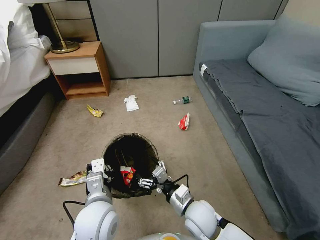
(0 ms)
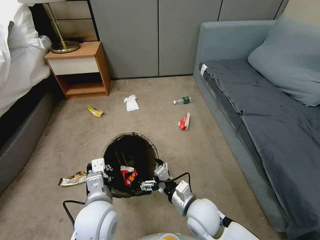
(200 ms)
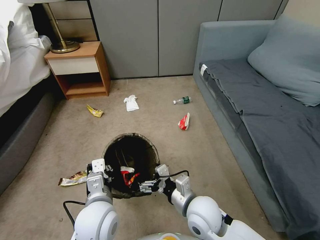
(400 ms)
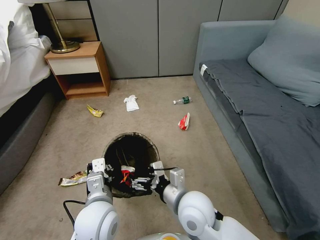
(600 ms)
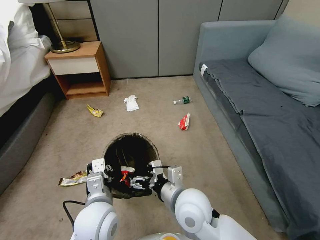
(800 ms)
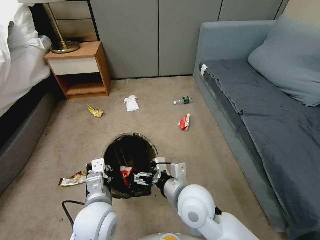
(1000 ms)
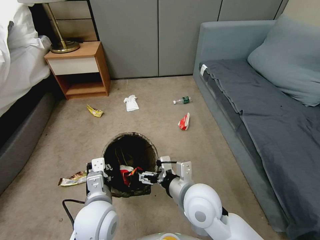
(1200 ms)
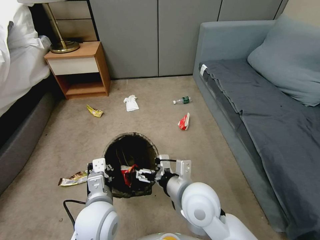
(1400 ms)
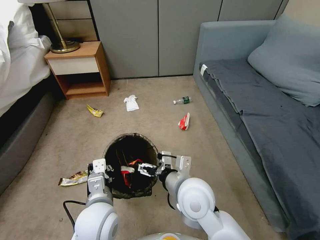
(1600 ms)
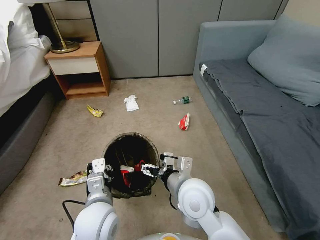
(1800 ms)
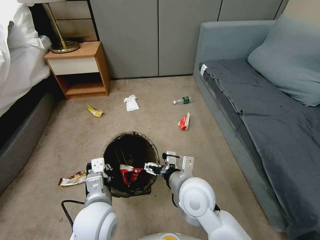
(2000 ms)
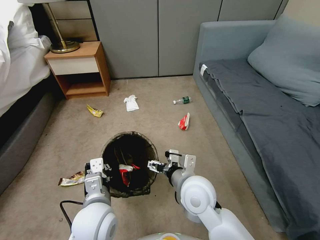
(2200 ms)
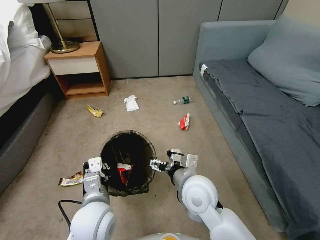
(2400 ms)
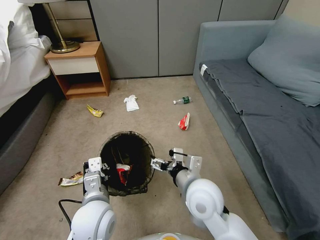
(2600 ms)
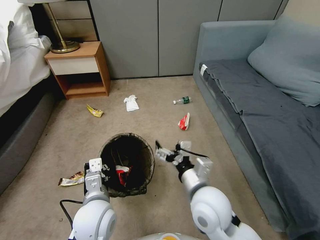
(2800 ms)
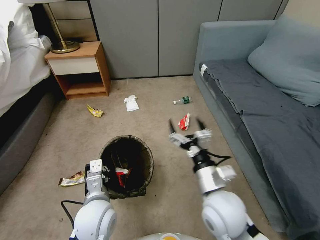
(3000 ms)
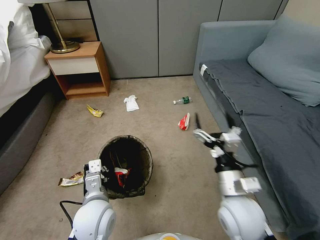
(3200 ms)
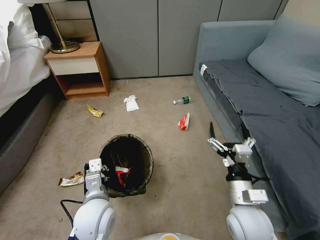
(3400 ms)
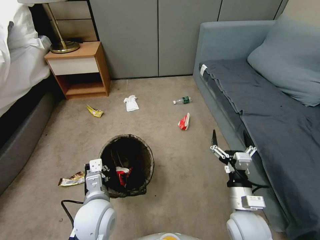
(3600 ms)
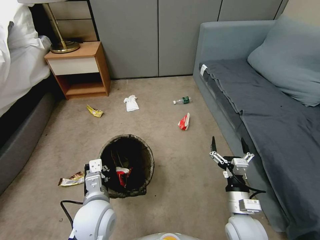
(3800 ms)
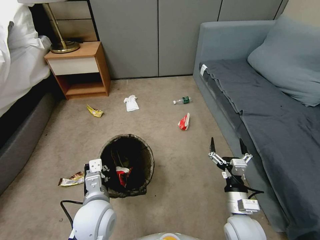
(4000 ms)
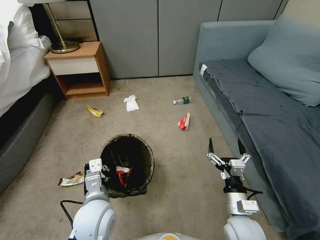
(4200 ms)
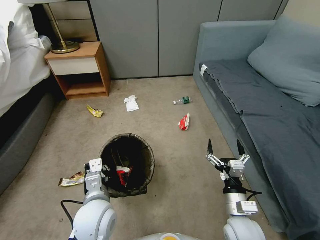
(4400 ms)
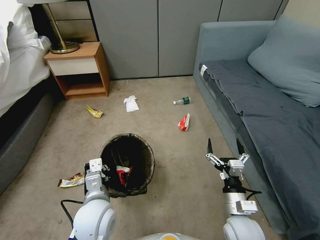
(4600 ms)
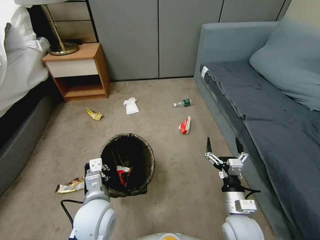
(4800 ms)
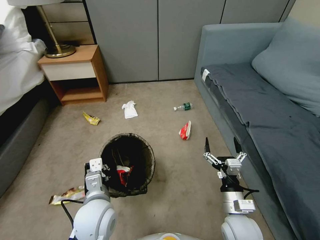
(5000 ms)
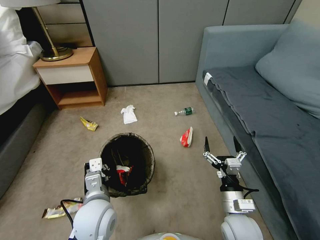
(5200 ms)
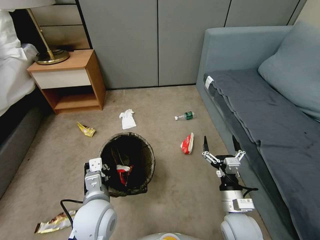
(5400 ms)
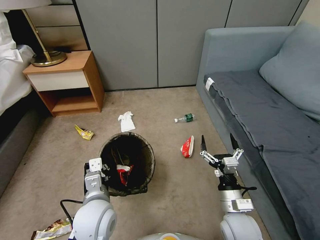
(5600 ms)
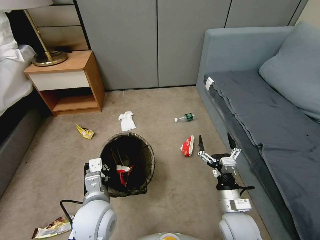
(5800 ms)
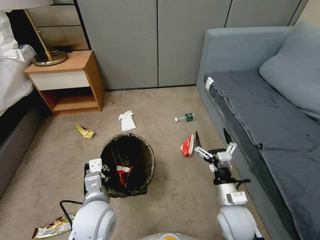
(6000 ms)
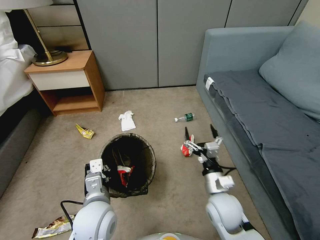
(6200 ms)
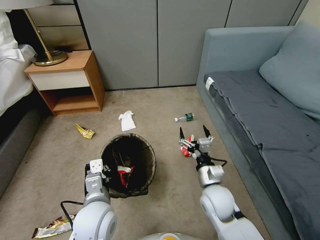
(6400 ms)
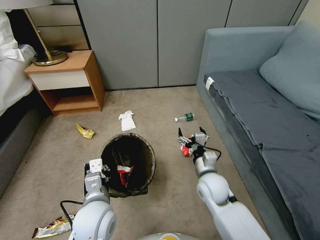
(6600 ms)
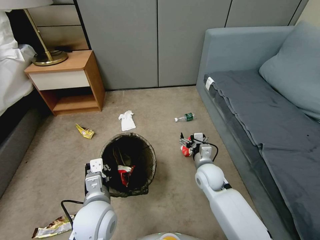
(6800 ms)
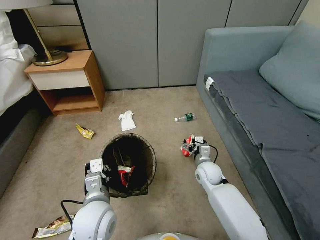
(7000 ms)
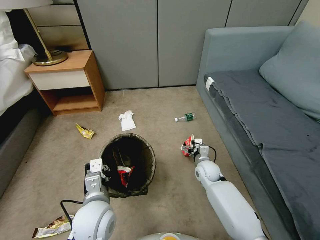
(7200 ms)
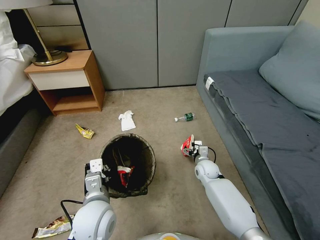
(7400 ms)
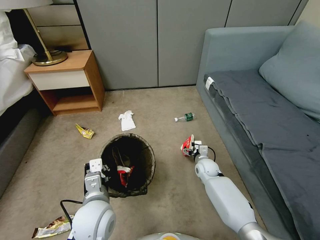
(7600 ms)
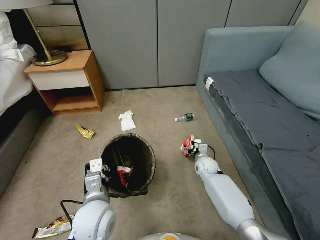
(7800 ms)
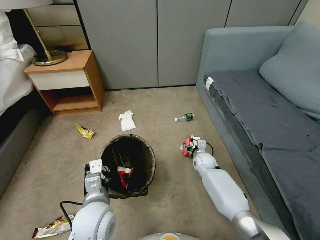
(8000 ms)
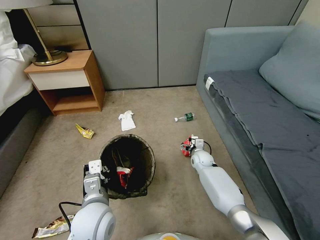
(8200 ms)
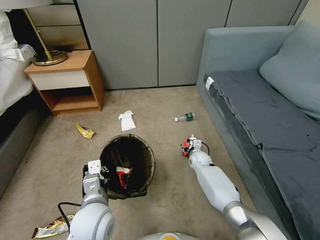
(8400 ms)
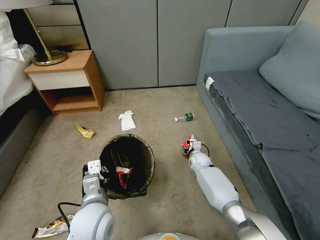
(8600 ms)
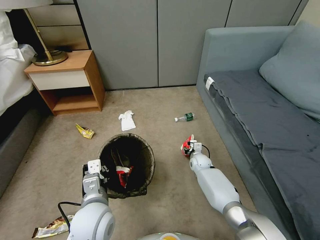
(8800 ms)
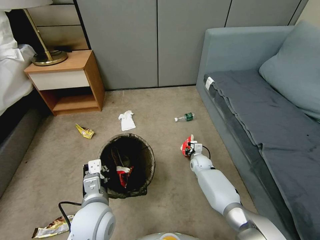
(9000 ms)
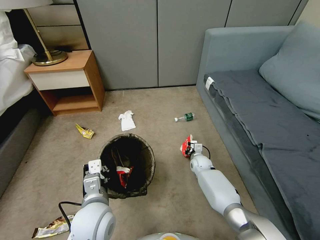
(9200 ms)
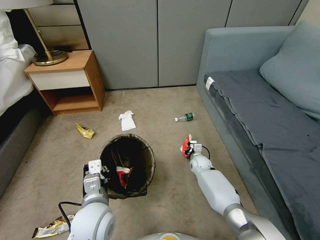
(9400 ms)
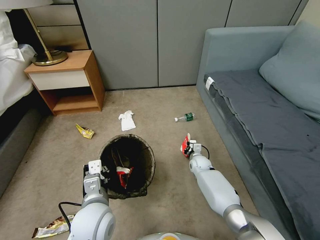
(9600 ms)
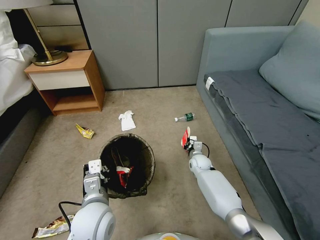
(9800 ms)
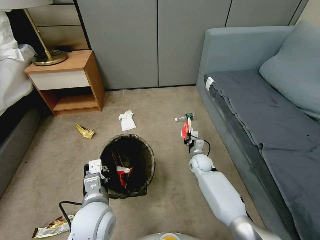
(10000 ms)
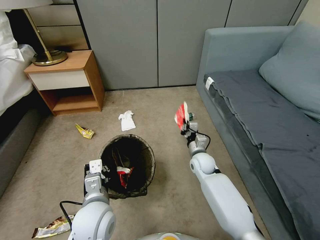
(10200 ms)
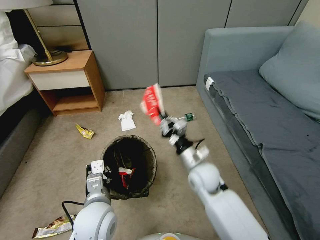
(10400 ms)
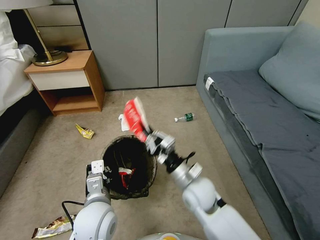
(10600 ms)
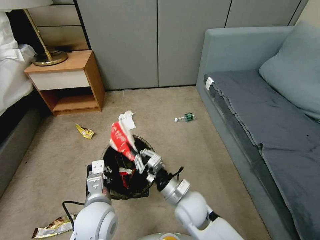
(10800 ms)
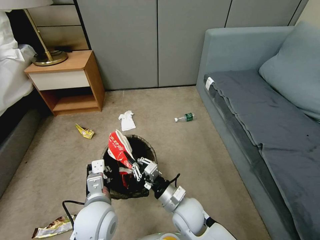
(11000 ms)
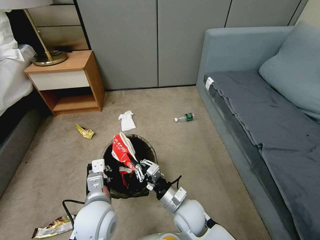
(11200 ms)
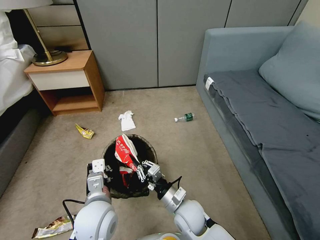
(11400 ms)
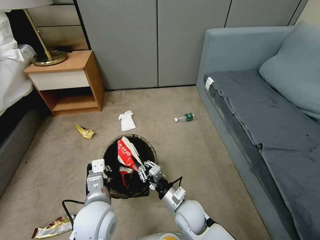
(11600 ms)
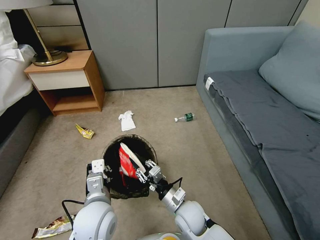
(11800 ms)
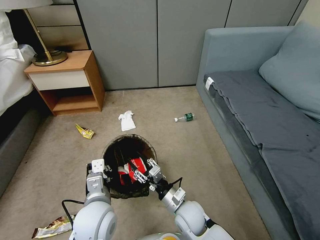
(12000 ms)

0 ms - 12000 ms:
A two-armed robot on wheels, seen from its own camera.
Task of the whole recording: Pick up the trash bin, then pick up the garbage from the floor and place it into the trash bin.
0 ms - 1600 ms: The right gripper heads upward, covering approximately 15 cm.
1600 ms - 3000 ms: The right gripper heads to the right, covering some 5 cm.
3000 ms - 4400 ms: The right gripper shifts roughly 15 cm downward and to the right.
6000 ms - 7600 ms: The right gripper moves forward and downward, approximately 25 cm.
7600 ms - 9000 ms: The right gripper shifts by about 5 cm, and closes its fingers.
9000 ms - 10400 ms: The right gripper goes roughly 25 cm upward and backward, and closes up.
10400 ms - 12000 ms: The right gripper travels backward and downward by approximately 15 cm, and opens.

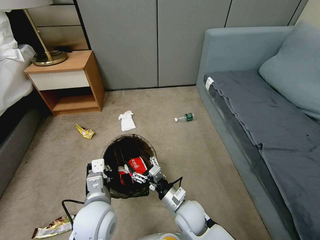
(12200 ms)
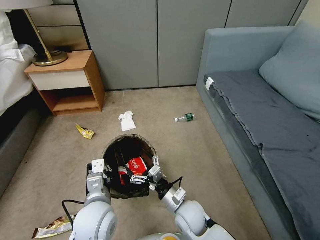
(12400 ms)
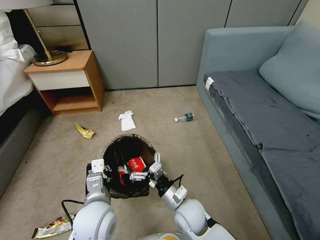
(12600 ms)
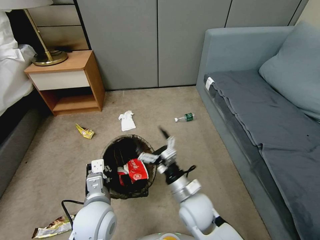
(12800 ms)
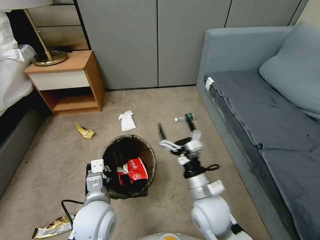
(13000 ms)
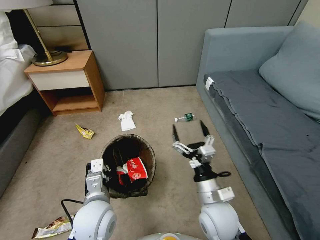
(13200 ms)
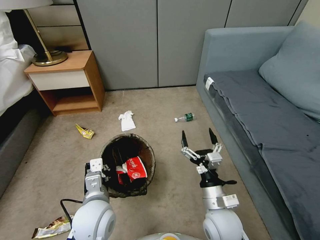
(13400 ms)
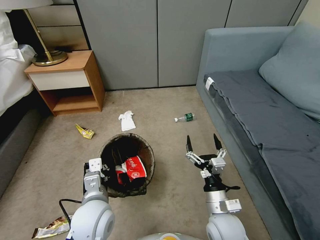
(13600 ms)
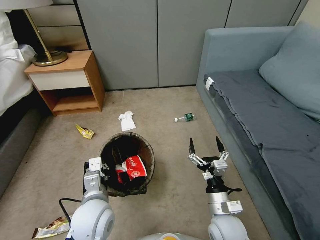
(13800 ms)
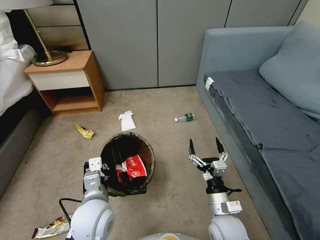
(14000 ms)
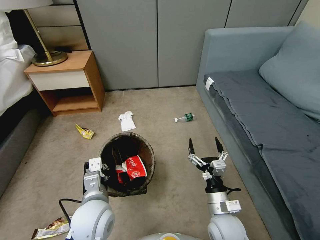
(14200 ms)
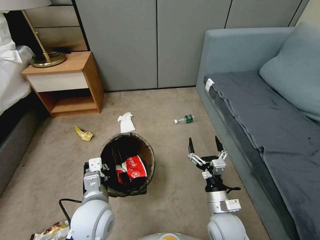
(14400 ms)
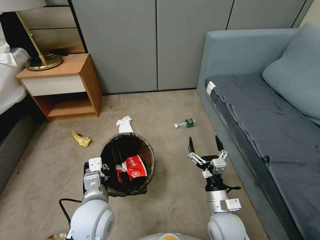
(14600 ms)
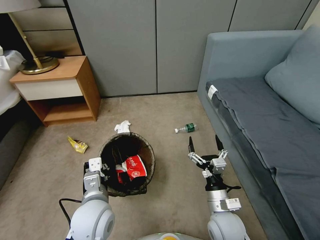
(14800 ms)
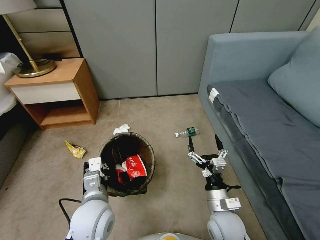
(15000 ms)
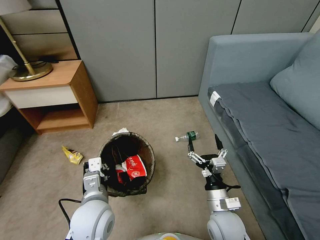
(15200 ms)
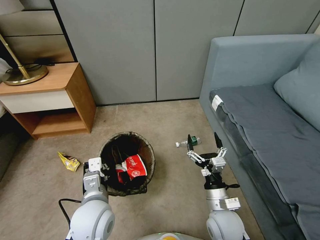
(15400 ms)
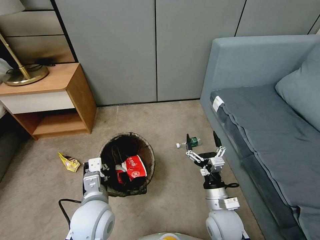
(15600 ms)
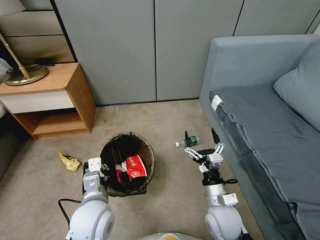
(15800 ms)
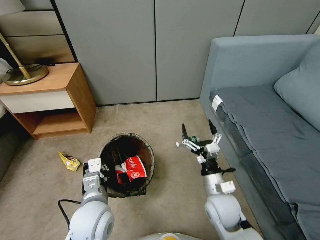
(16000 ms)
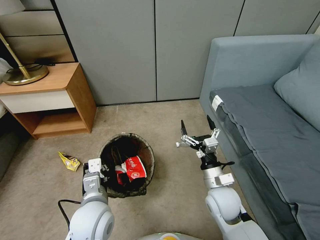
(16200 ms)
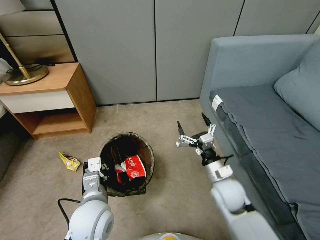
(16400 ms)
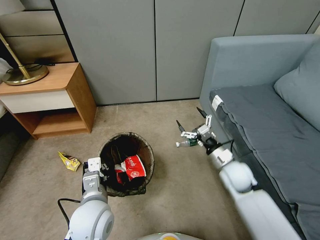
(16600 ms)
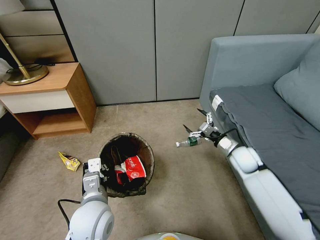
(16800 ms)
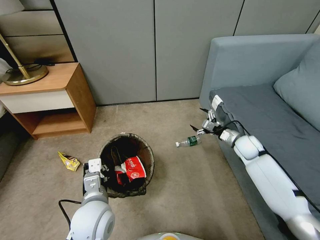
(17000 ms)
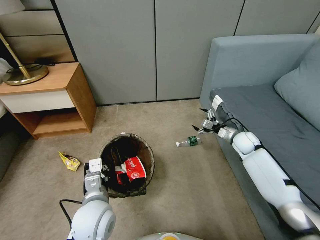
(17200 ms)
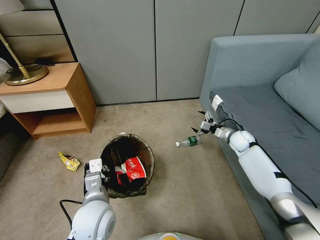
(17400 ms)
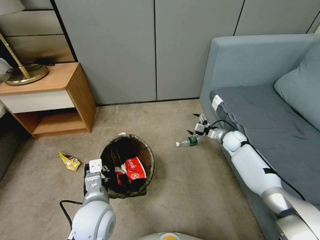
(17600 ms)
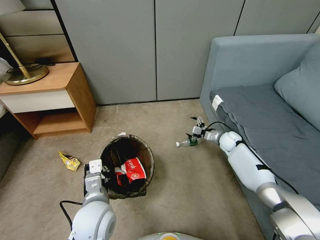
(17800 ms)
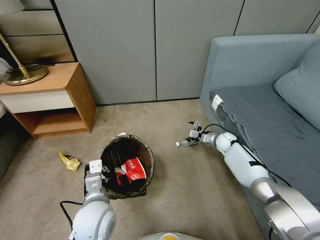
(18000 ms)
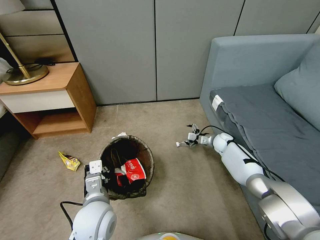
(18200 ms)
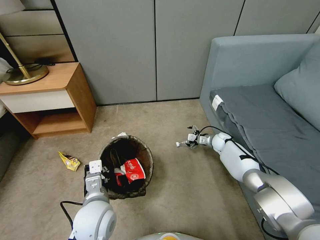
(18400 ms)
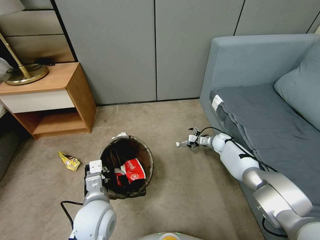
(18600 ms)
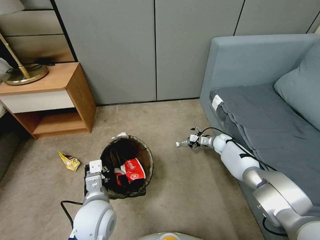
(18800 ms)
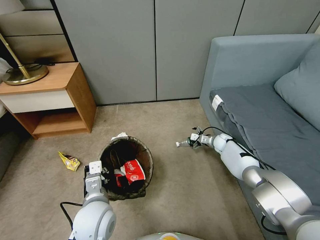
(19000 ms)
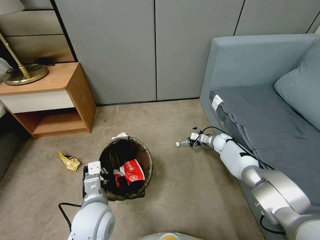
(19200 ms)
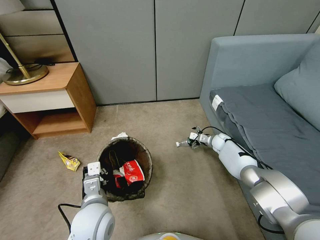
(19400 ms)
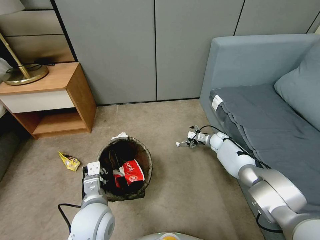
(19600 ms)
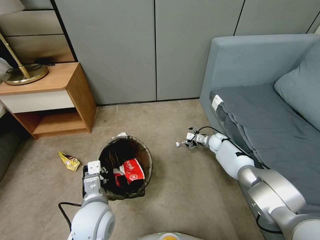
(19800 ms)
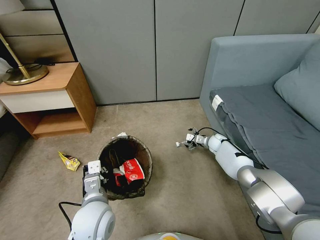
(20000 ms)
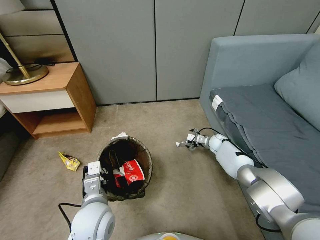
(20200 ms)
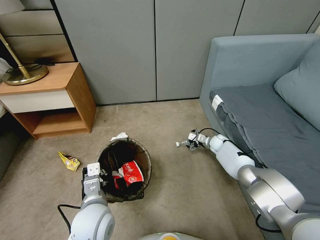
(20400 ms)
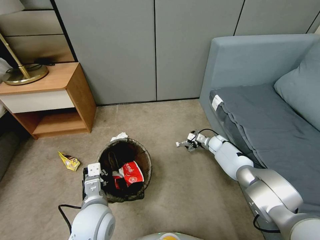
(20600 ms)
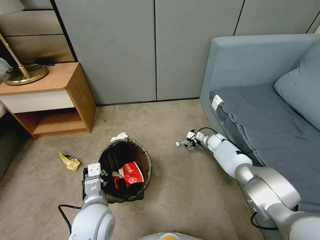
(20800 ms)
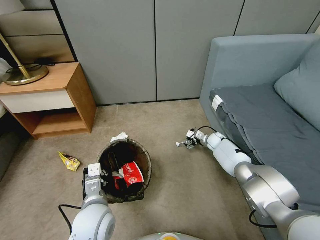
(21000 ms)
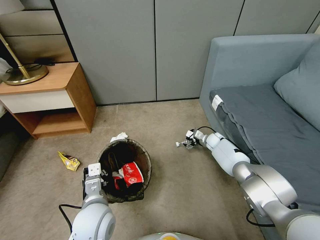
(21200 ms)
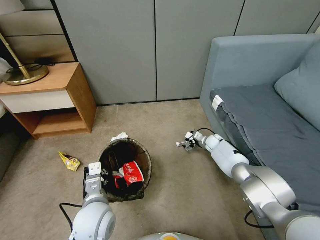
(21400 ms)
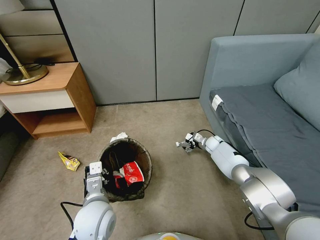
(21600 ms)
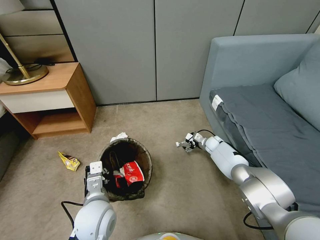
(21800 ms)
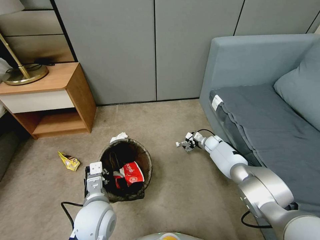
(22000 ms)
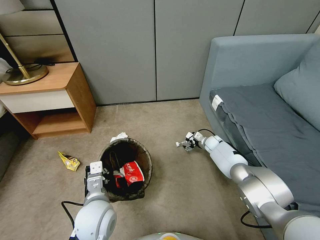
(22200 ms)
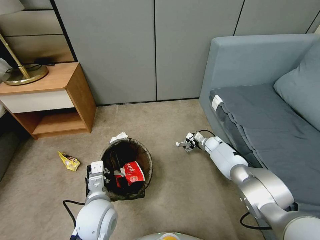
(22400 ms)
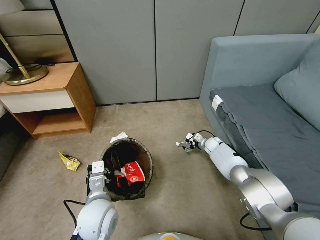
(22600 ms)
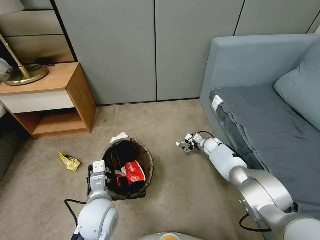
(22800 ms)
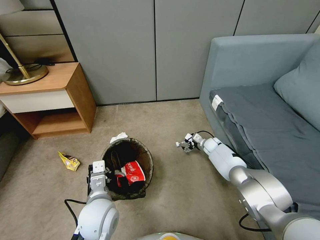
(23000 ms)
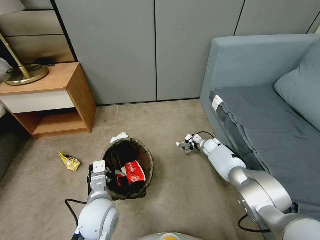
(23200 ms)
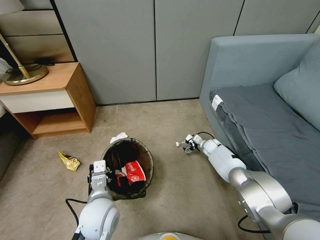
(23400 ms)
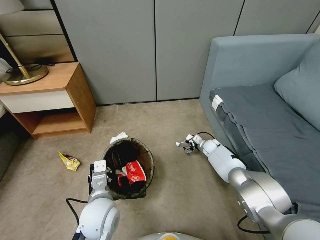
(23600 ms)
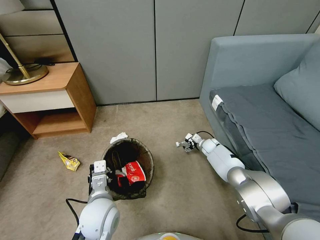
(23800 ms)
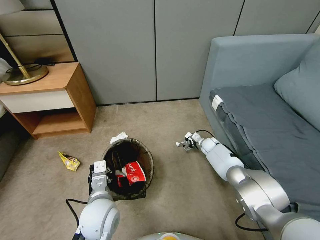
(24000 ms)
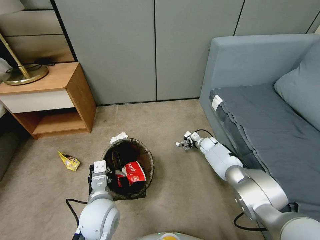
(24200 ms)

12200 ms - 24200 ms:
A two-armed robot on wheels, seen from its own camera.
Task of the whole recording: Pick up the trash bin, then pick up the garbage from the floor and place it into the trash bin.
12200 ms - 13800 ms: The right gripper heads to the right, covering about 10 cm.
15200 ms - 16600 ms: The right gripper heads forward and to the right, covering some 15 cm.
16600 ms - 18200 ms: The right gripper moves forward and downward, roughly 25 cm.
18200 ms - 19800 ms: The grippers make only small movements.
19800 ms - 21200 ms: The grippers stay close to where they were, moving slightly.
21200 ms - 24200 ms: The grippers stay close to where they were, moving slightly.
